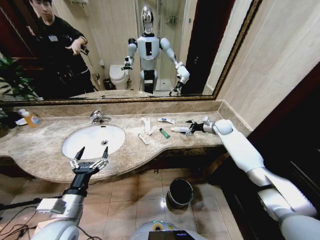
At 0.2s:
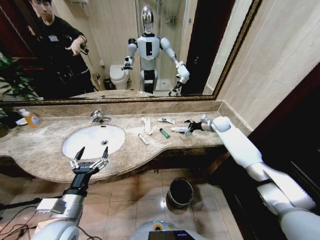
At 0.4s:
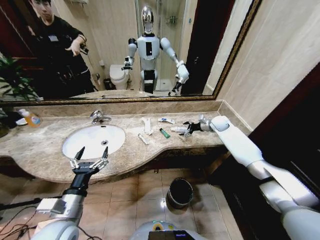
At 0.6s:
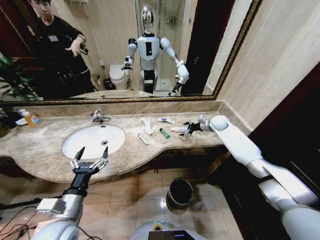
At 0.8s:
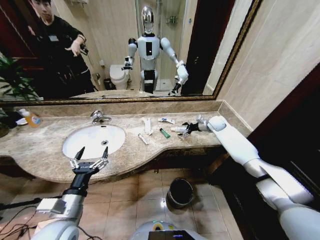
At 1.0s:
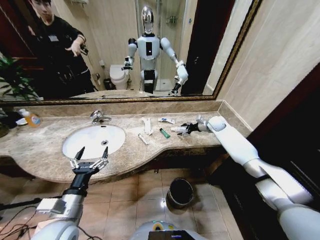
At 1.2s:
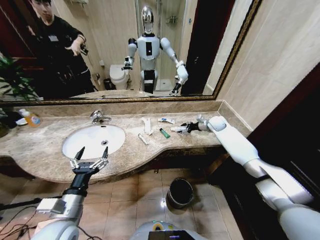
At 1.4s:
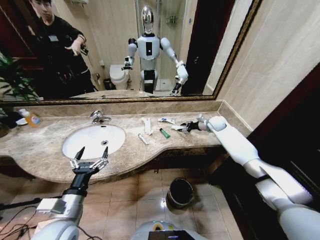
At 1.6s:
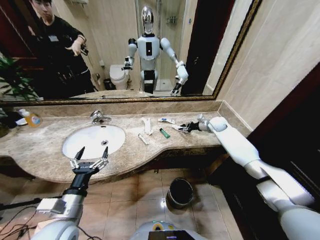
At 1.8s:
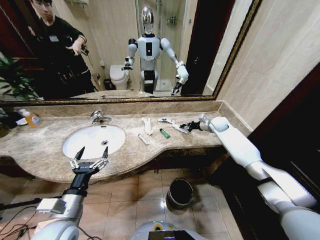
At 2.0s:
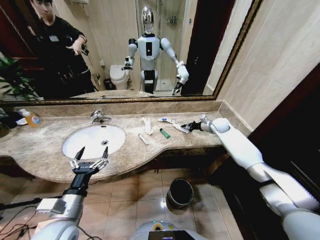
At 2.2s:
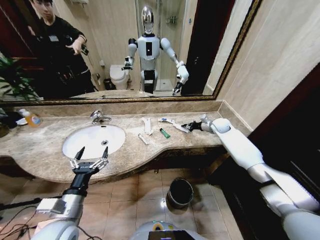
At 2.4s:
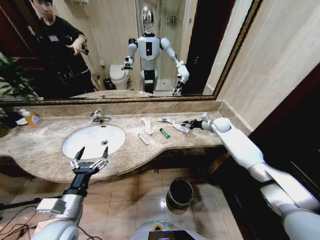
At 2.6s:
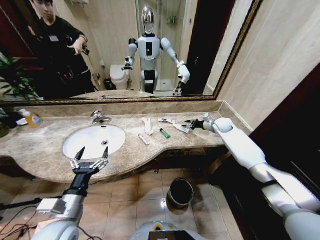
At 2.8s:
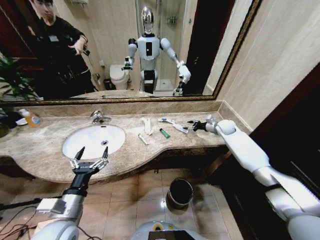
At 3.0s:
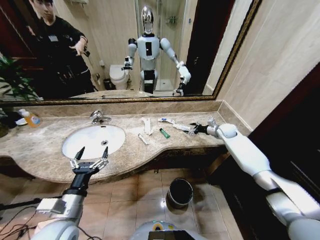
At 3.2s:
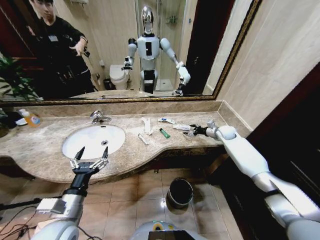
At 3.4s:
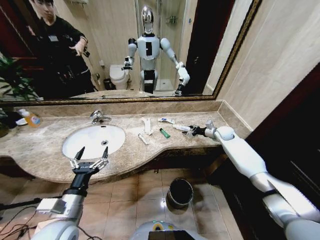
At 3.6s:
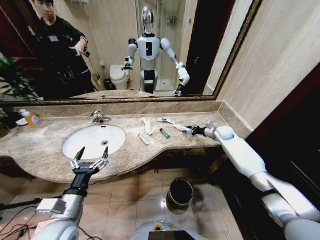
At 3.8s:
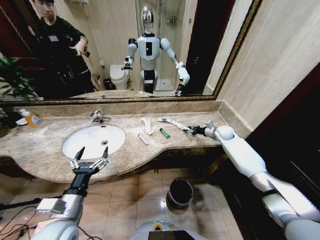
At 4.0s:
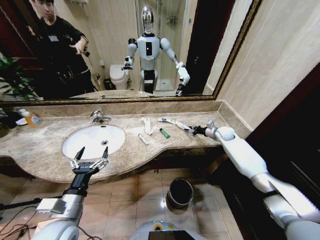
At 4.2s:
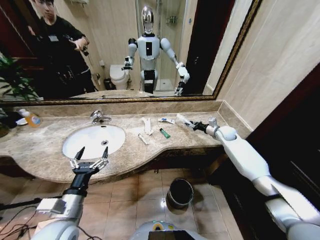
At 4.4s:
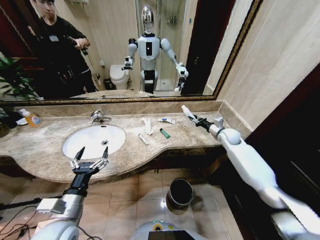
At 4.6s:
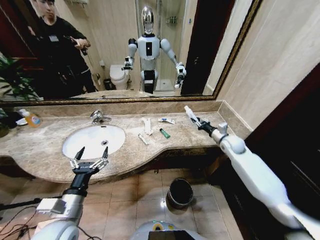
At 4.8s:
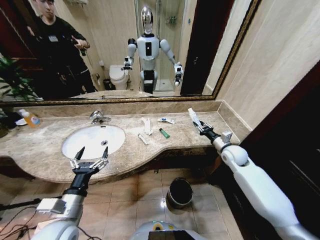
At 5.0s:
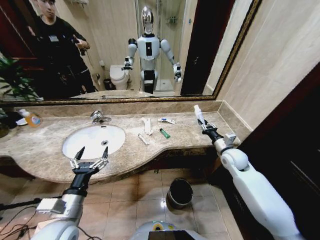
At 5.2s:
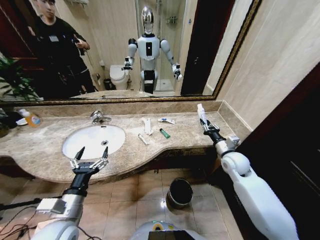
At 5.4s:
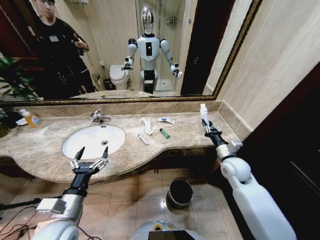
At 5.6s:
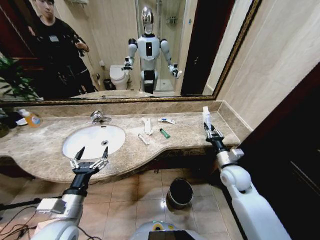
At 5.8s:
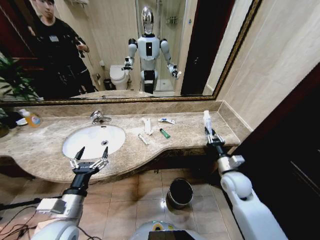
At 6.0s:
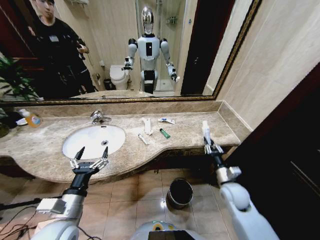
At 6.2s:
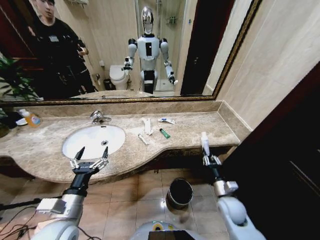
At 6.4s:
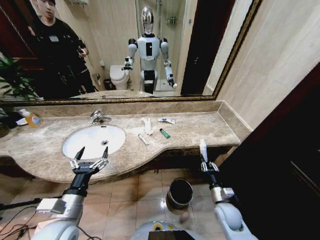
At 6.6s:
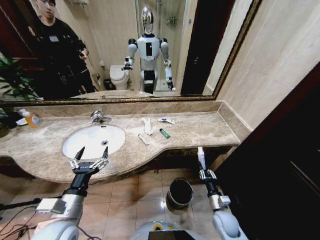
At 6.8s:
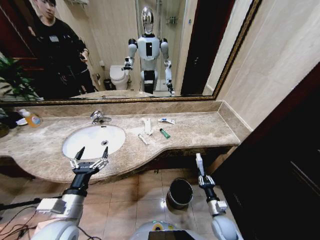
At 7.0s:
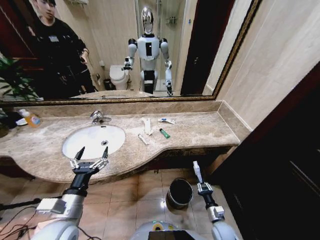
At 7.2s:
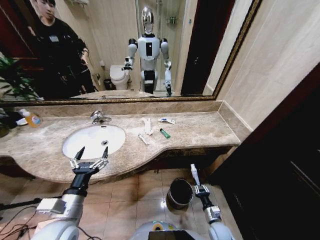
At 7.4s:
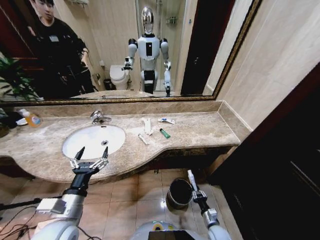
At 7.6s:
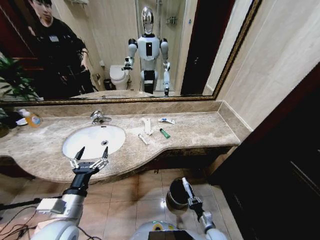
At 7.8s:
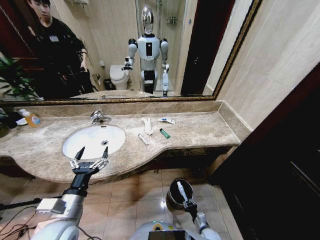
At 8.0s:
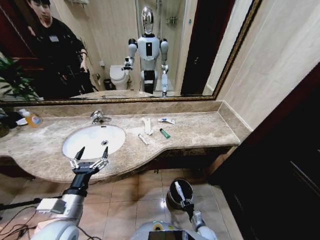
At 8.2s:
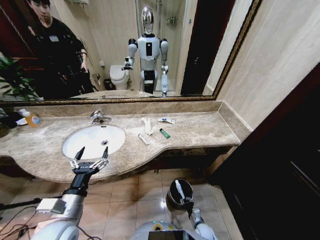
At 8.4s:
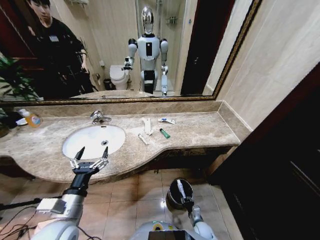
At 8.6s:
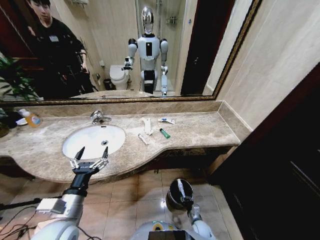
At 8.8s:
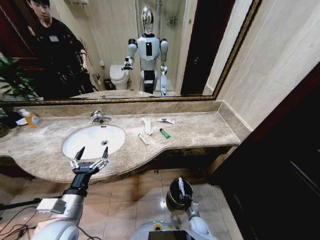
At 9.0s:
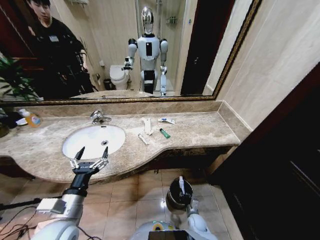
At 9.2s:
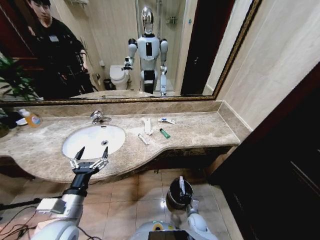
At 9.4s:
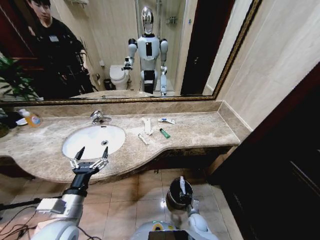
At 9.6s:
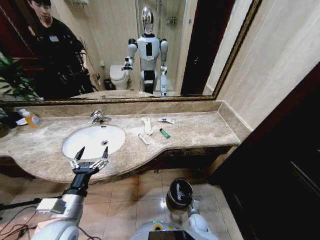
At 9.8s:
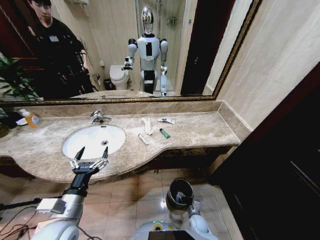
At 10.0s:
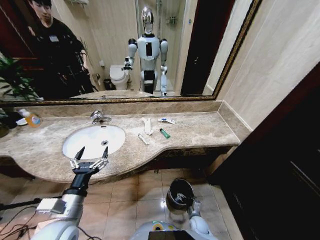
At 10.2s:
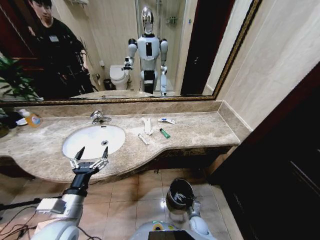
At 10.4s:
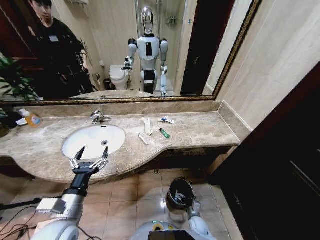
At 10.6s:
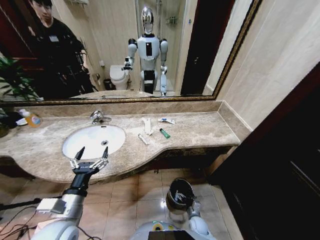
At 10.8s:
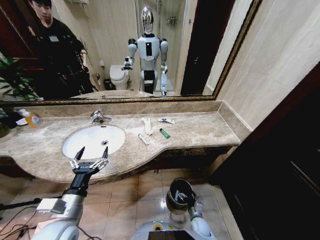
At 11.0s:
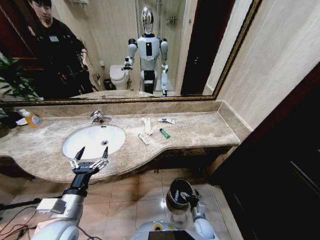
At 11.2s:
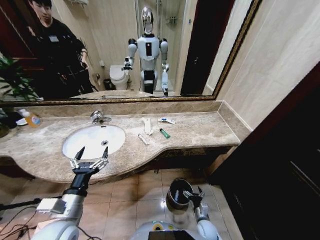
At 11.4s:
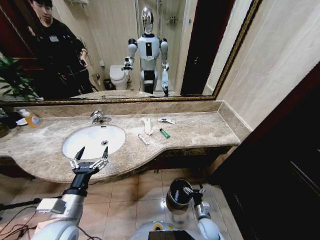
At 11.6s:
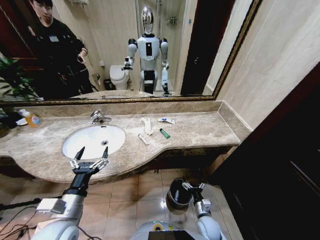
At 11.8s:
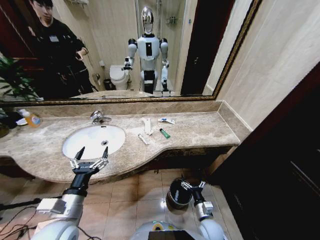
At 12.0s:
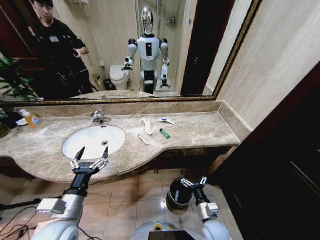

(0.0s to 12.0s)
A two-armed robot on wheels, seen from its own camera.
Task of the whole recording: Pick up the trash from the sink and place it in the trash bin.
0.0s - 1.6s: The right gripper closes up.
1.6s - 3.0s: The right gripper shifts by about 5 cm, and opens.
3.0s - 4.4s: The right gripper moves backward, roughly 5 cm, and closes its fingers.
4.4s - 6.0s: The right gripper goes some 25 cm backward and downward.
6.0s - 7.6s: The right gripper goes about 30 cm downward and backward.
7.6s - 9.0s: The right gripper heads to the left and forward, covering about 10 cm.
9.0s - 10.4s: The right gripper opens up.
10.4s - 12.0s: The right gripper goes approximately 20 cm upward.

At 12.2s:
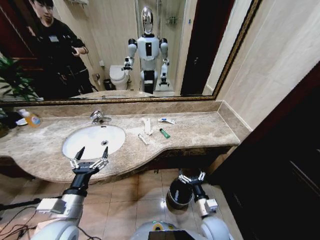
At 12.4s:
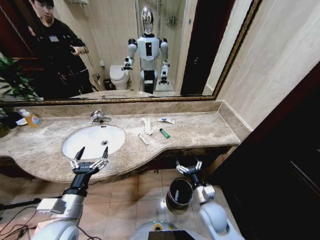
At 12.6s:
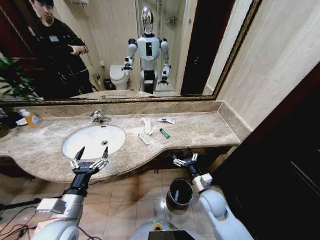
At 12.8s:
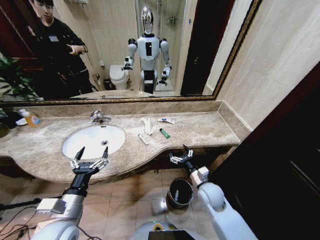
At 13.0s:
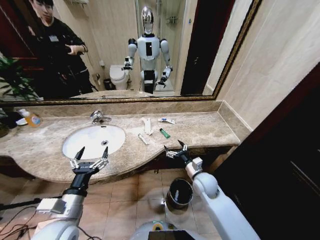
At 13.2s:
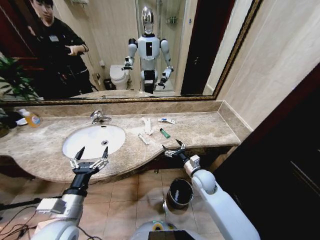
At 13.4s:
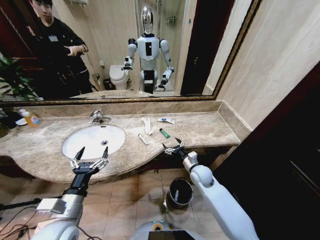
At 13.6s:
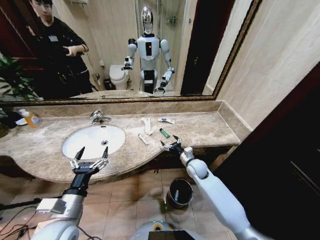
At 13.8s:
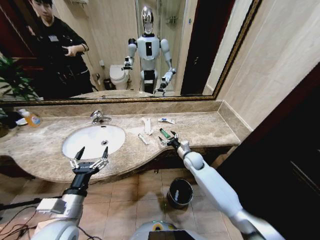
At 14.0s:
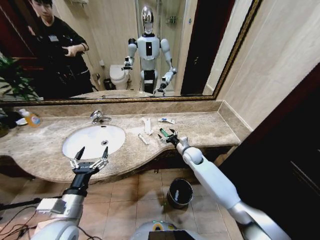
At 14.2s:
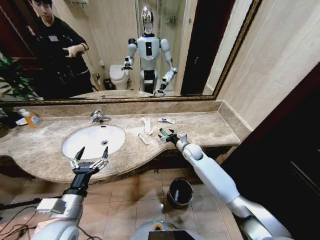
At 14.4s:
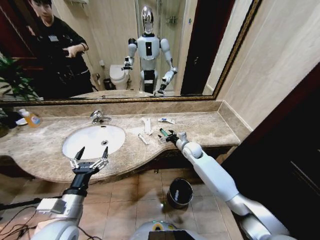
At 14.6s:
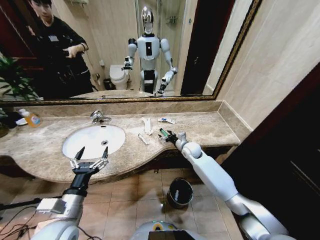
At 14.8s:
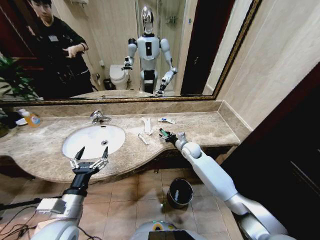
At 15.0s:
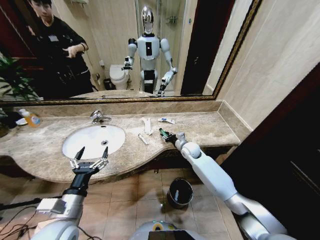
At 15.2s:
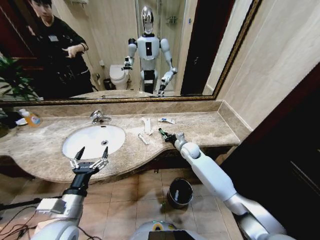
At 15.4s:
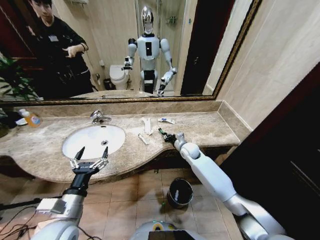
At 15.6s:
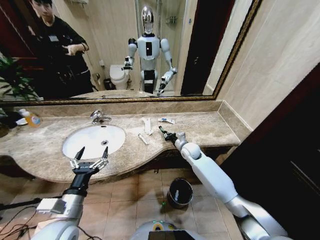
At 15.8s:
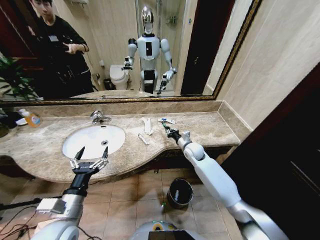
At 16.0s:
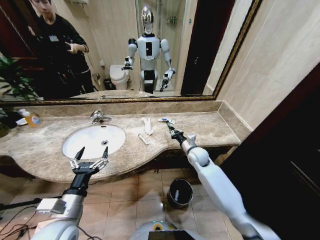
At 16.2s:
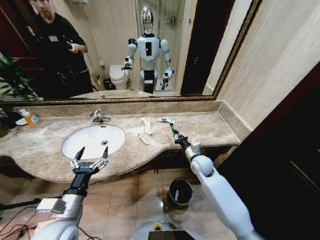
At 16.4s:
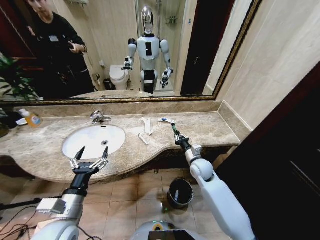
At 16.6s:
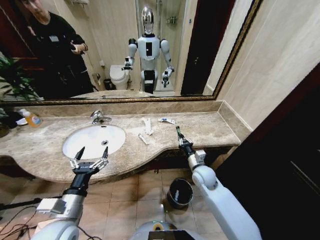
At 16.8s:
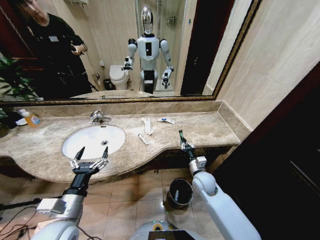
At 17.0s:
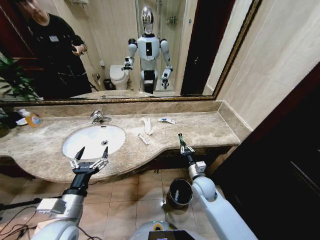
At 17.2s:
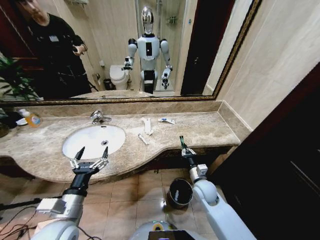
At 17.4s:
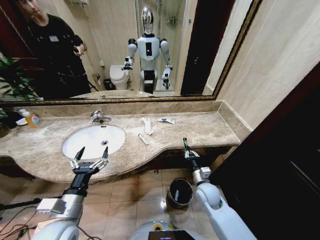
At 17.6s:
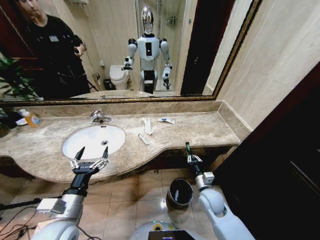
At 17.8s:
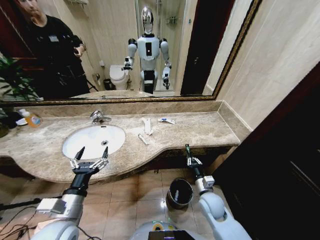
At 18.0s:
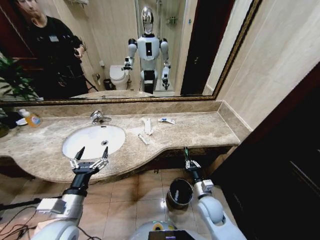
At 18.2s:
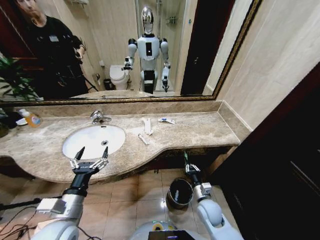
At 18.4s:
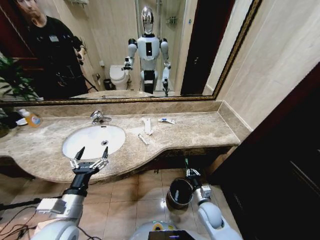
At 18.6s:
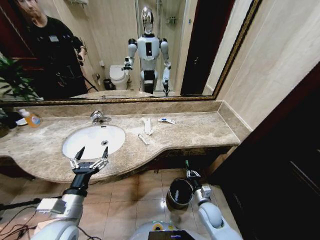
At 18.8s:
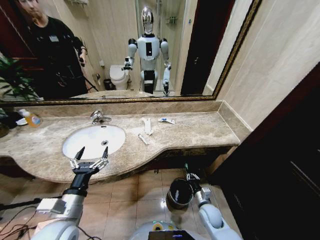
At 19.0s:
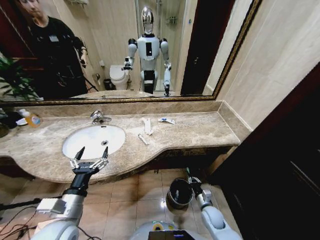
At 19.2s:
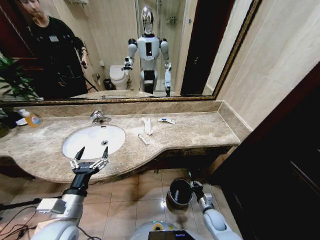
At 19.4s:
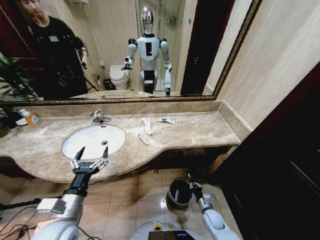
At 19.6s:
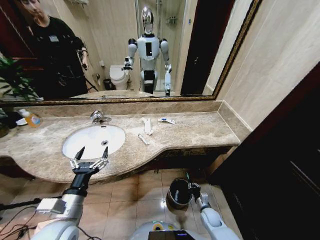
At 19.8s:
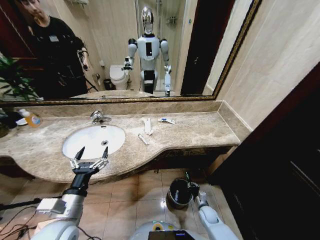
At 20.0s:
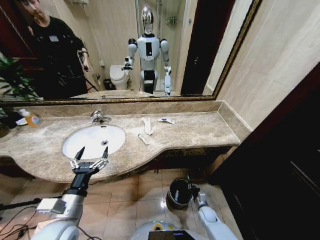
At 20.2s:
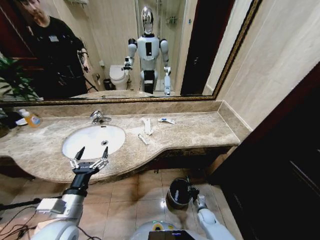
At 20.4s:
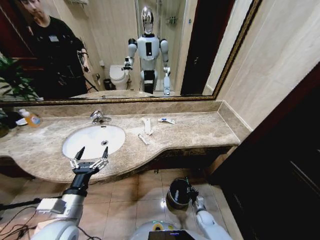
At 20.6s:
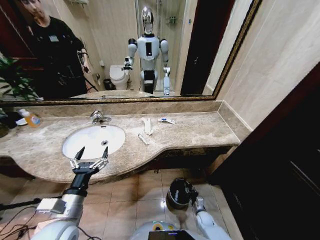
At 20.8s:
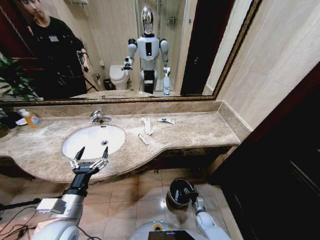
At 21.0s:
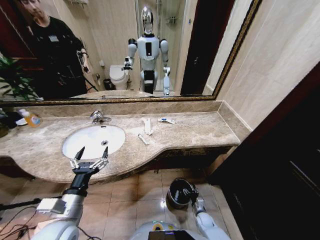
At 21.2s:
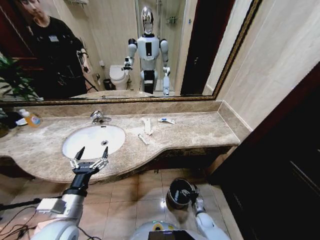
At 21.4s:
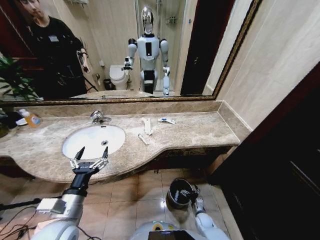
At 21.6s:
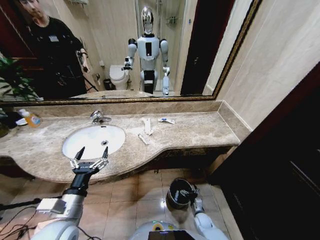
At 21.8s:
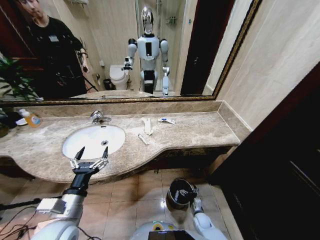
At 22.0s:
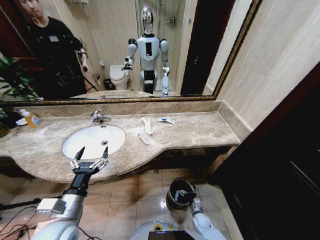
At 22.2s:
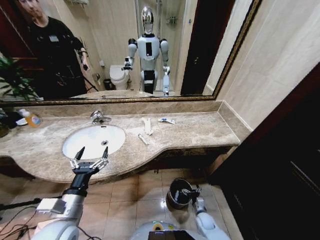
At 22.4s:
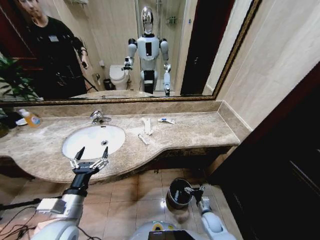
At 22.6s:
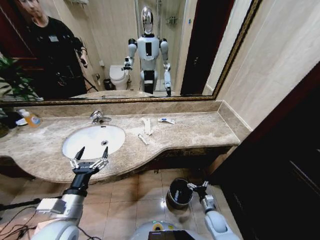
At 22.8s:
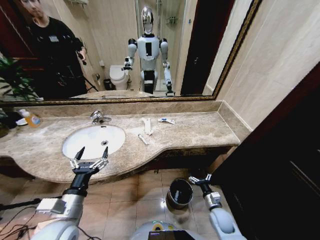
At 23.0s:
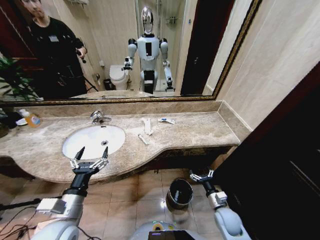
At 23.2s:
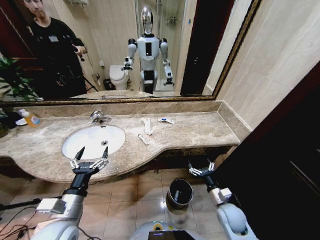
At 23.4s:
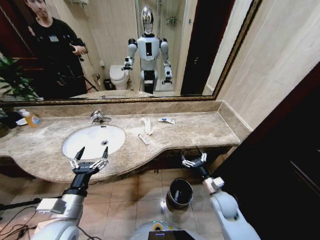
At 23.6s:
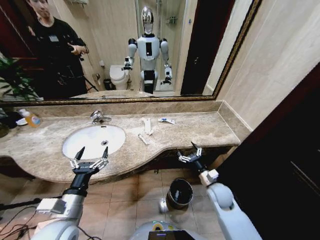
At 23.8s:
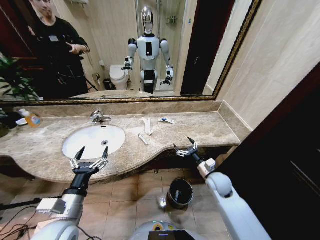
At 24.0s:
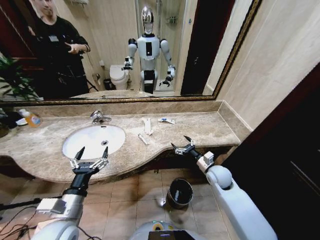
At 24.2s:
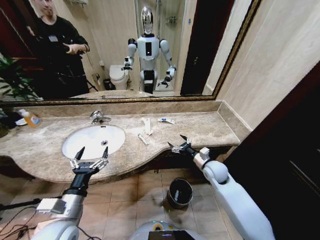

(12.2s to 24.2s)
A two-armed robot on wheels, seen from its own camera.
Task of the whole recording: Pick up the trash from the sink and place it in the trash bin.
12.2s - 13.8s: The right gripper is displaced forward by approximately 25 cm.
13.8s - 15.2s: The right gripper changes place by about 5 cm, and closes.
15.2s - 16.6s: The right gripper heads backward, covering some 15 cm.
16.6s - 18.2s: The right gripper travels backward and downward by approximately 15 cm.
18.2s - 19.8s: The right gripper shifts roughly 15 cm downward.
19.8s - 21.2s: The right gripper travels downward by approximately 5 cm, and opens its fingers.
21.2s - 22.6s: The right gripper travels upward by some 10 cm.
22.6s - 24.2s: The right gripper travels upward and forward by approximately 30 cm.
